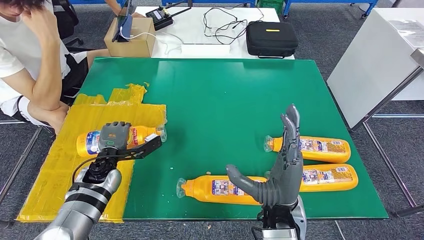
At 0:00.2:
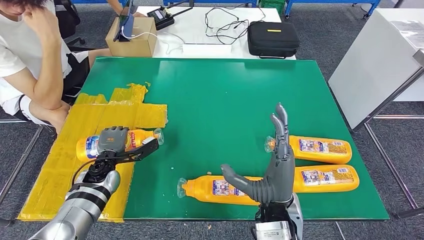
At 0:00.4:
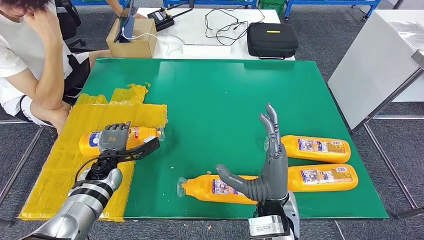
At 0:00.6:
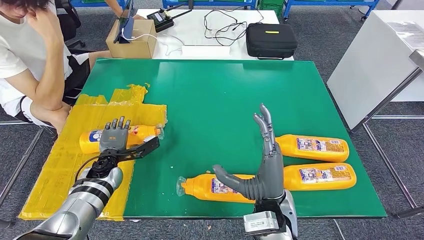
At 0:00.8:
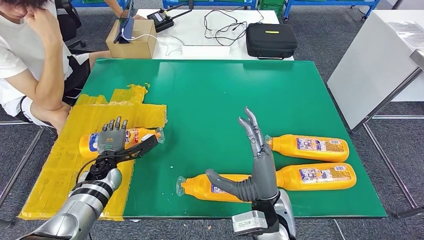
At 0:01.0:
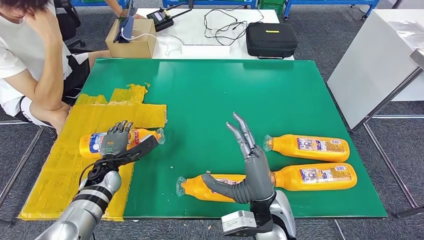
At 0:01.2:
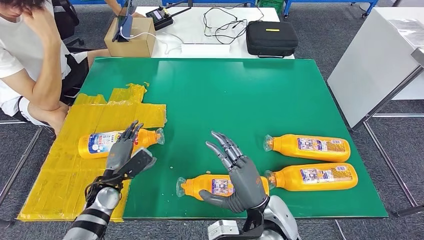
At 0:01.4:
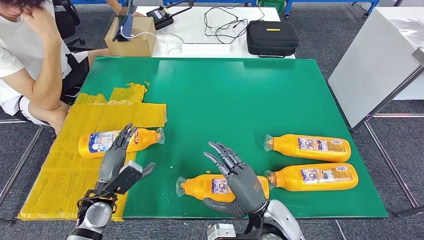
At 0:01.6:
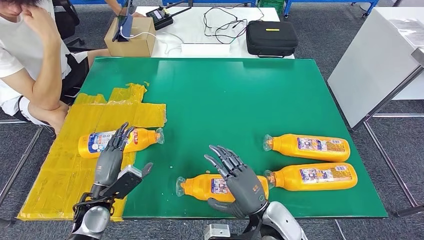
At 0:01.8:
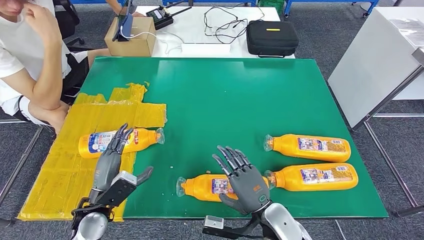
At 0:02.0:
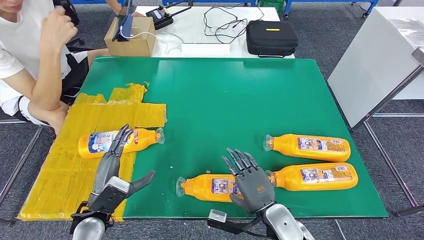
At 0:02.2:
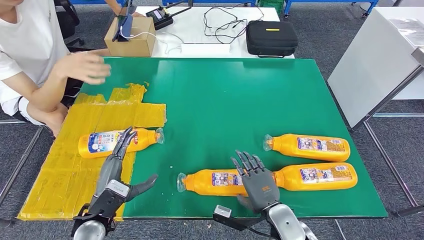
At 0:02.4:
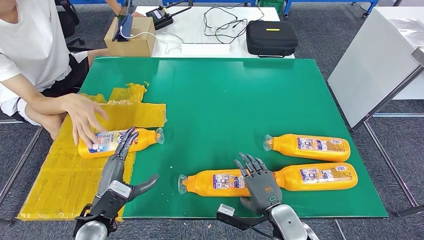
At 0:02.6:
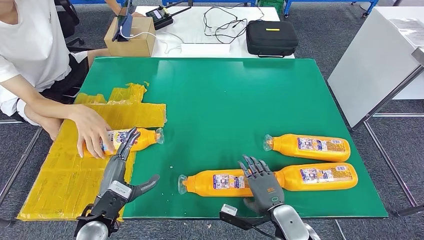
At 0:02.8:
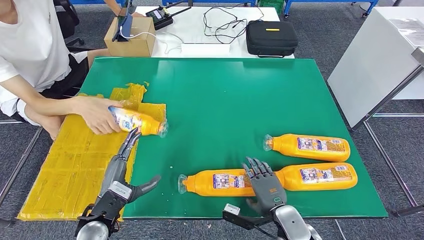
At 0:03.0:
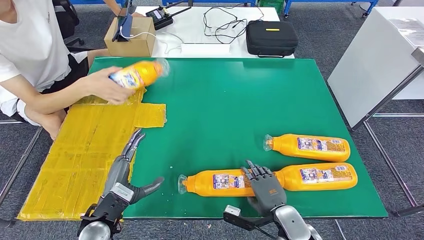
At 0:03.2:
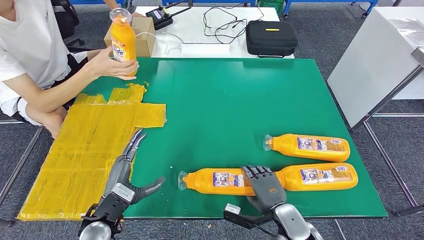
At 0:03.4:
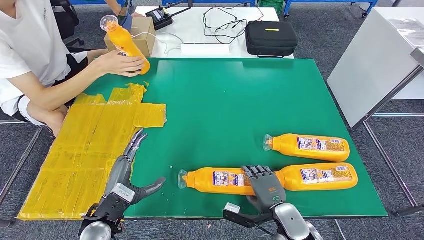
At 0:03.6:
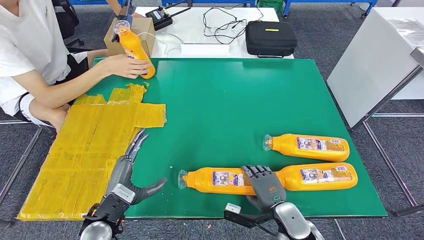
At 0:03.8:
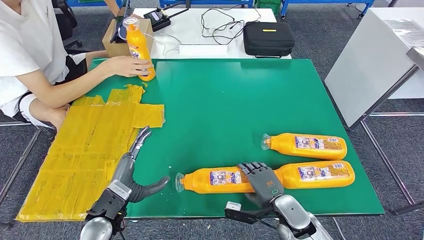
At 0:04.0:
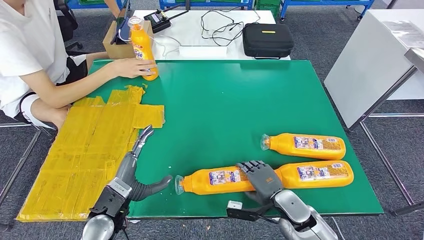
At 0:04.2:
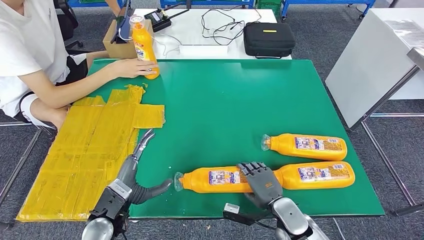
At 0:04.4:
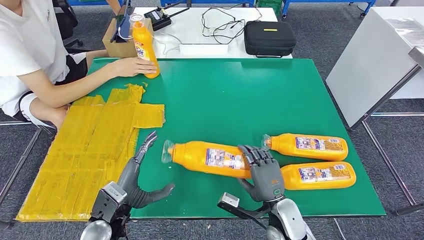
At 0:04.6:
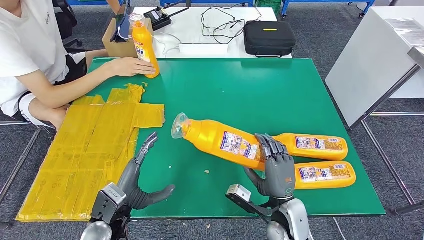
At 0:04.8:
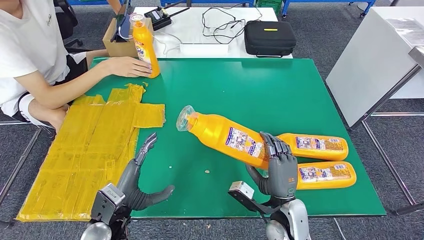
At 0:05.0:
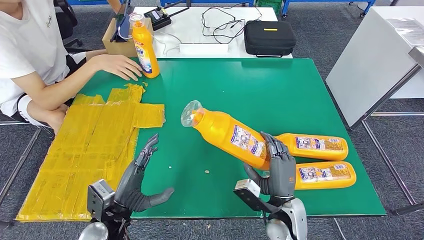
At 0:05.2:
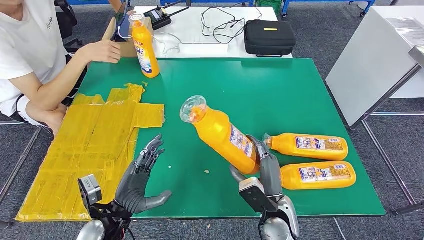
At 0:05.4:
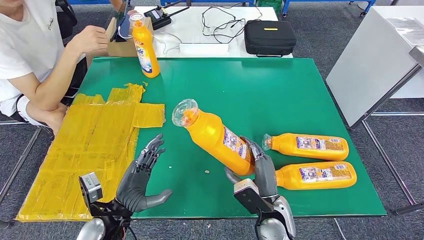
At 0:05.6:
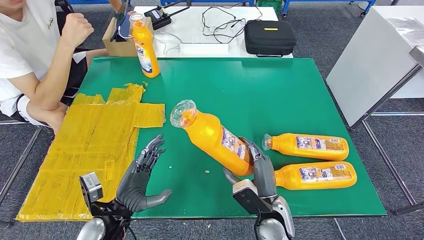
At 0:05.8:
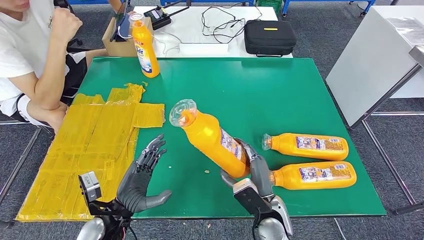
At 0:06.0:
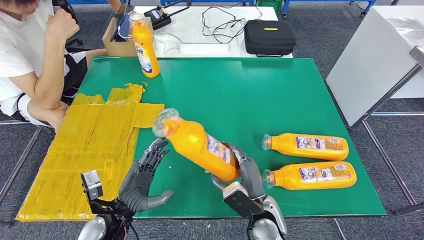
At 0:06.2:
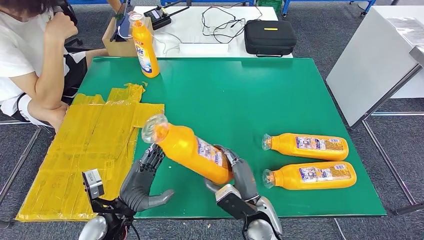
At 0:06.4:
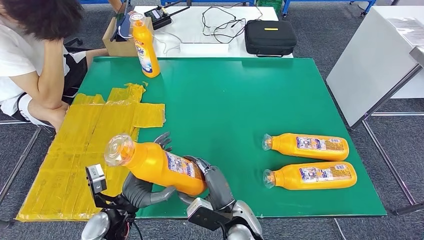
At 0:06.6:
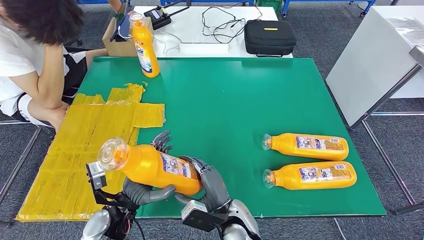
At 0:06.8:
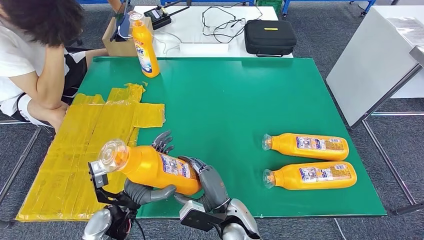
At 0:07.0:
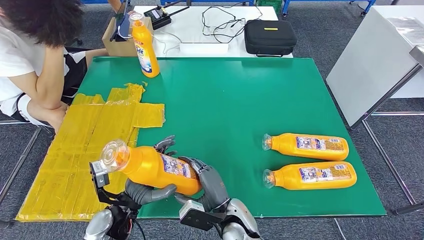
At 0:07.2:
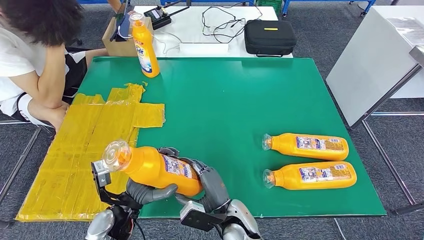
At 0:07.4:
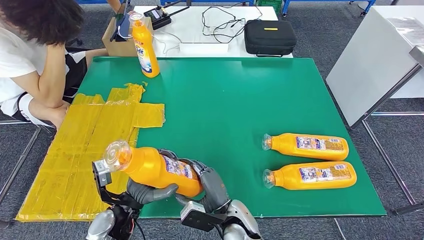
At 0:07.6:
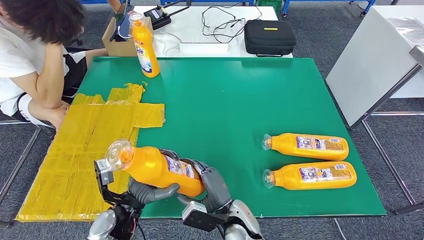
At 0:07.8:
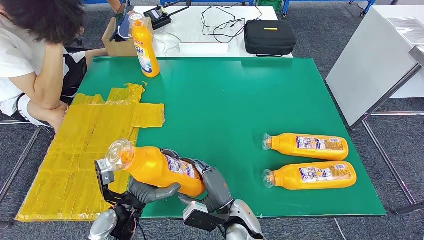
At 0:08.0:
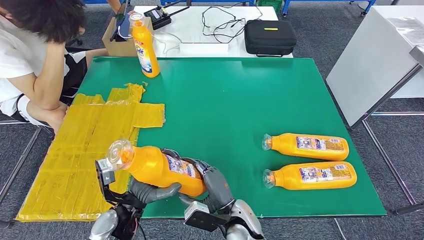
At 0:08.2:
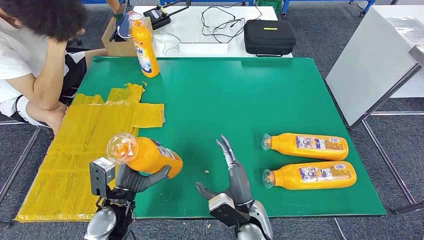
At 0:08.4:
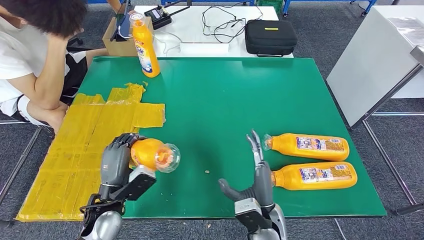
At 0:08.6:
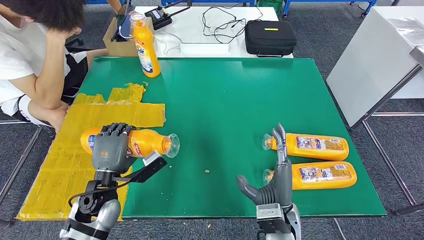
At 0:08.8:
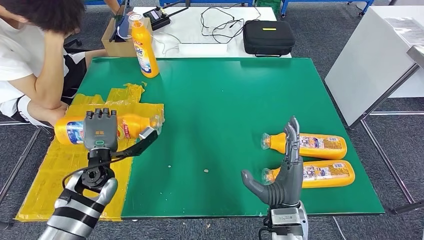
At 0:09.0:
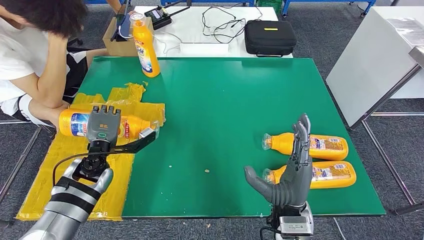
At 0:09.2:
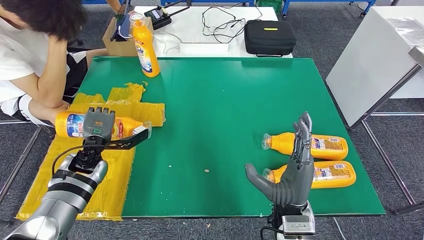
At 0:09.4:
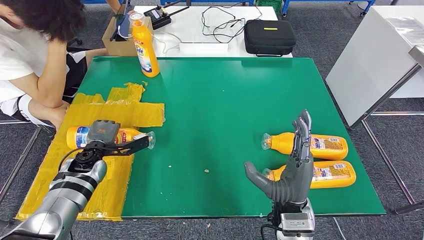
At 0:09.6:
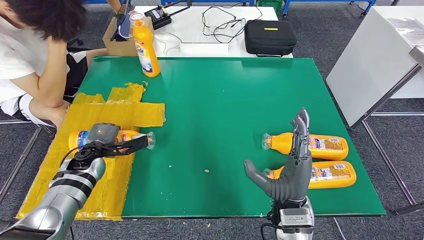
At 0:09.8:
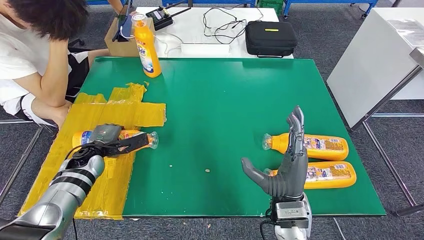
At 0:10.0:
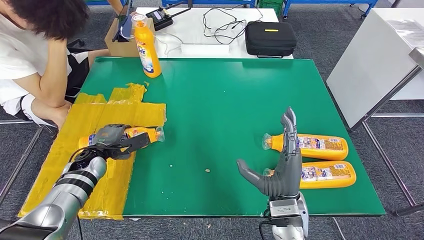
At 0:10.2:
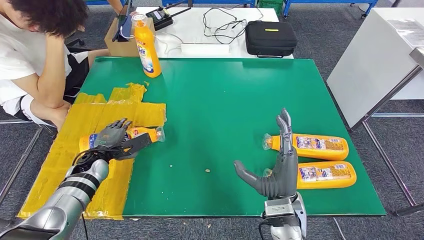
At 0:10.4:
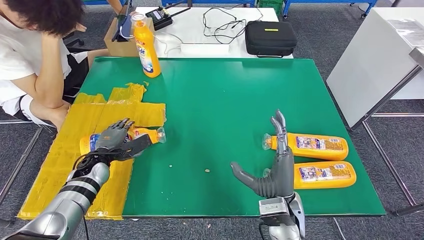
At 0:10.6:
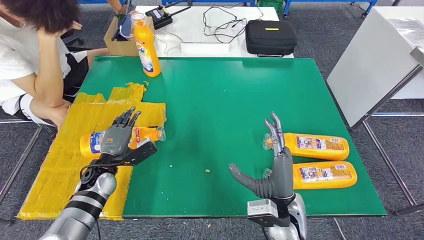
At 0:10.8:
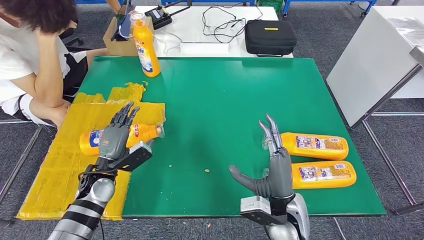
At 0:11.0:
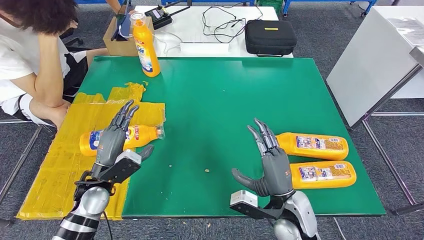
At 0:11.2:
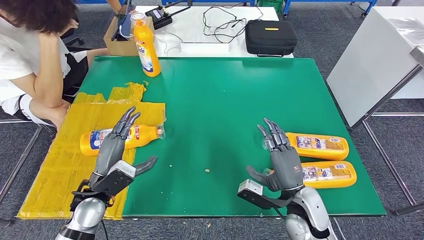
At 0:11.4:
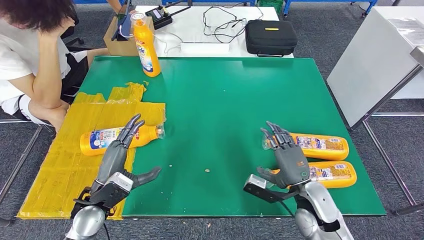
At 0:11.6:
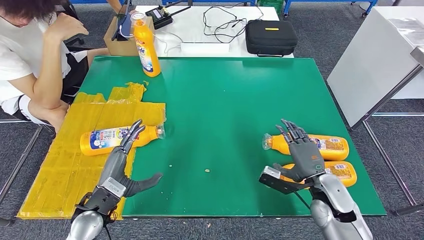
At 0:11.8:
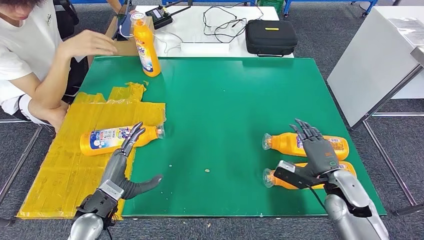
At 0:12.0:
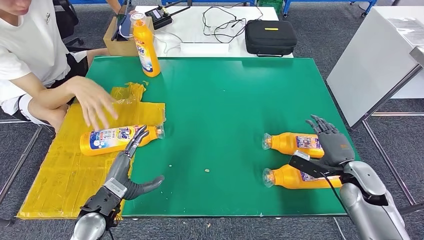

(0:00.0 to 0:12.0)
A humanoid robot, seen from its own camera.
Step, 0:02.0 - 0:07.2: Pick up the fast-moving consumer goods bottle from the table.
Step, 0:07.4 - 0:11.6: Flip the fast-moving consumer goods bottle to the front side.
0:00.0 - 0:01.6: The right hand moves downward, approximately 5 cm. Meanwhile the left hand shifts approximately 10 cm backward.
0:01.6 - 0:03.0: The right hand goes about 10 cm downward and to the right, while the left hand ends up approximately 5 cm from where it was.
0:04.4 - 0:06.0: The right hand goes roughly 5 cm to the left.
0:06.0 - 0:07.6: The right hand heads to the left, covering some 5 cm.
0:09.0 - 0:10.4: The left hand goes approximately 5 cm downward.

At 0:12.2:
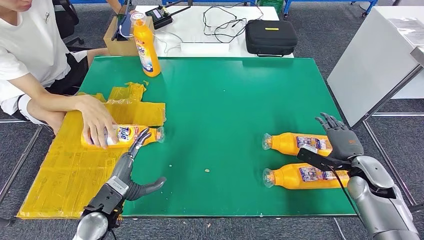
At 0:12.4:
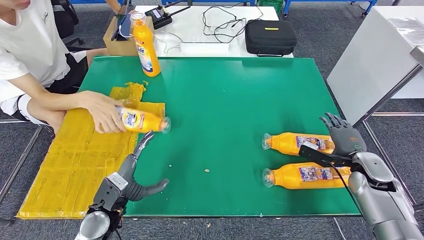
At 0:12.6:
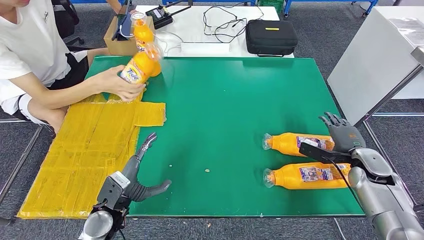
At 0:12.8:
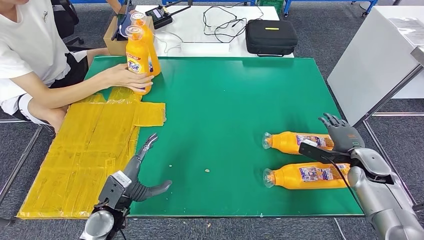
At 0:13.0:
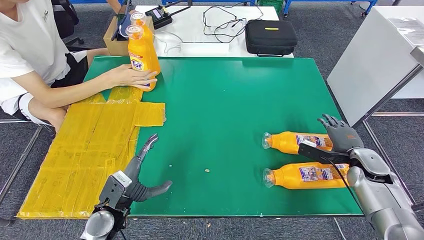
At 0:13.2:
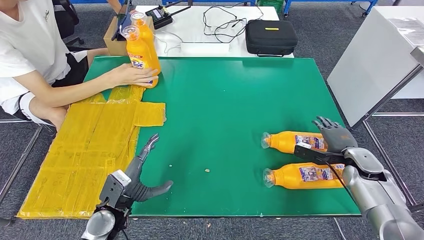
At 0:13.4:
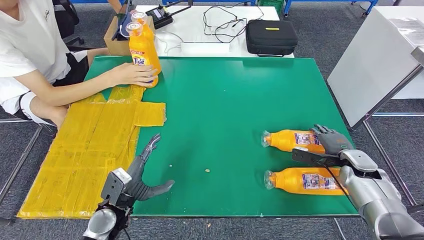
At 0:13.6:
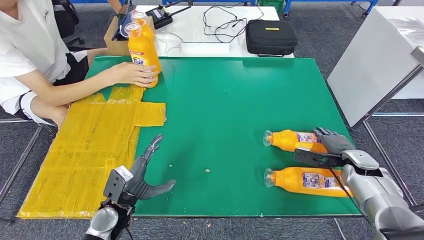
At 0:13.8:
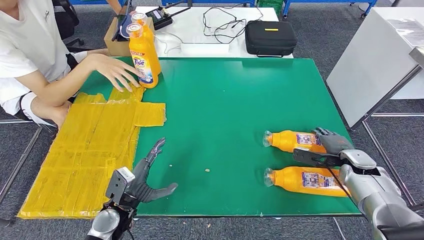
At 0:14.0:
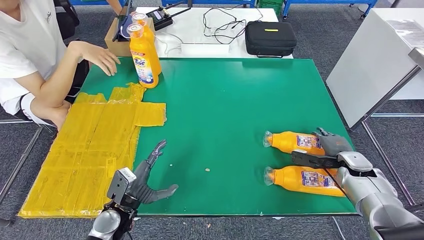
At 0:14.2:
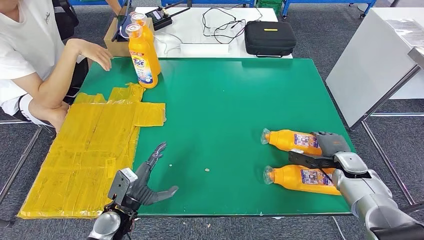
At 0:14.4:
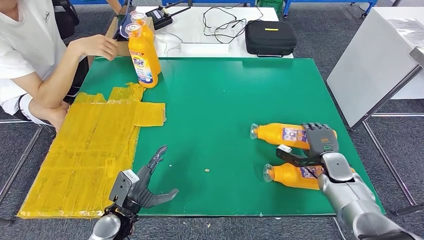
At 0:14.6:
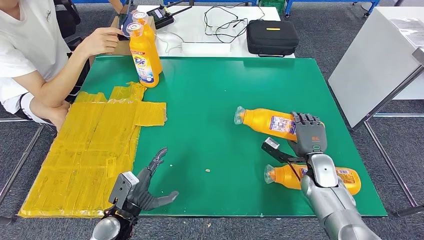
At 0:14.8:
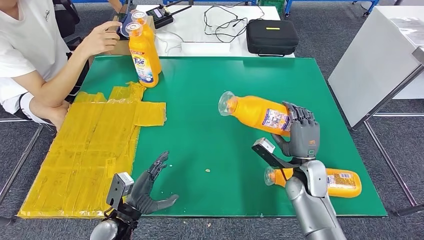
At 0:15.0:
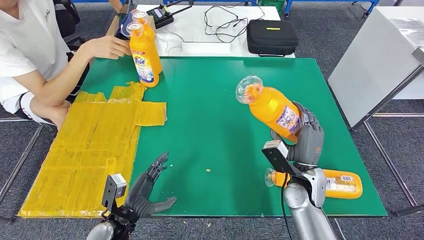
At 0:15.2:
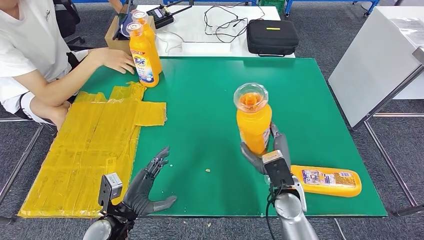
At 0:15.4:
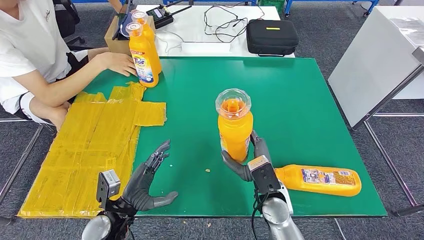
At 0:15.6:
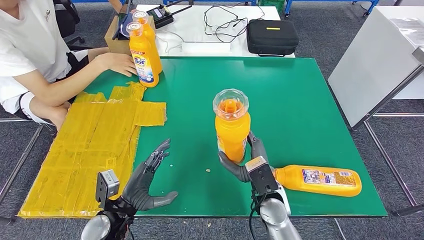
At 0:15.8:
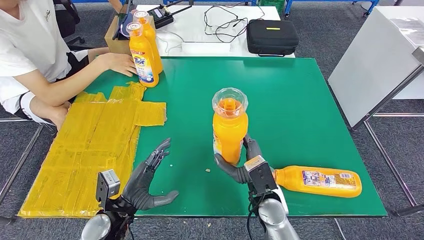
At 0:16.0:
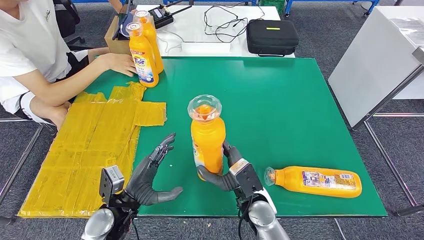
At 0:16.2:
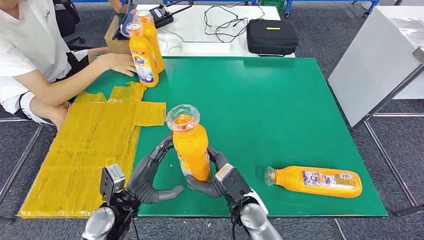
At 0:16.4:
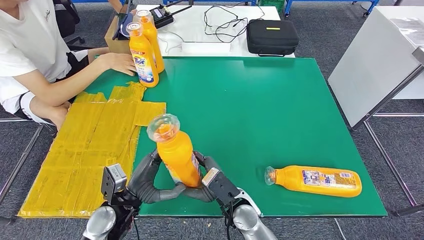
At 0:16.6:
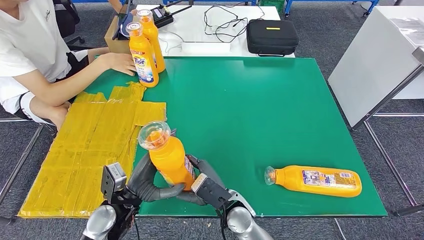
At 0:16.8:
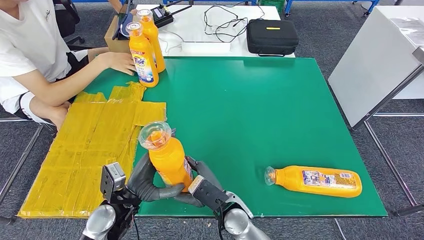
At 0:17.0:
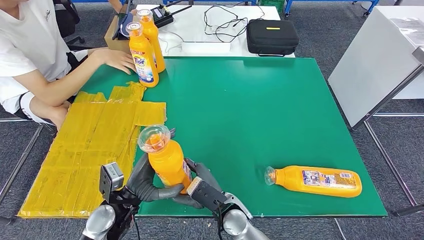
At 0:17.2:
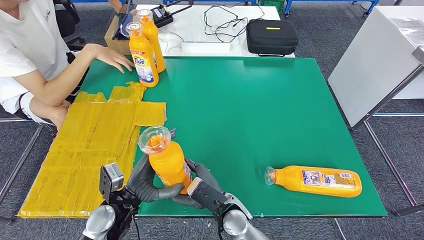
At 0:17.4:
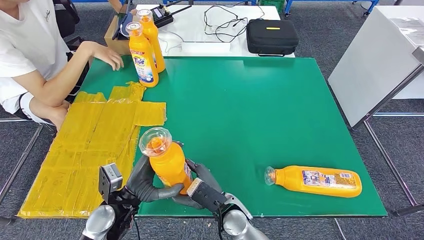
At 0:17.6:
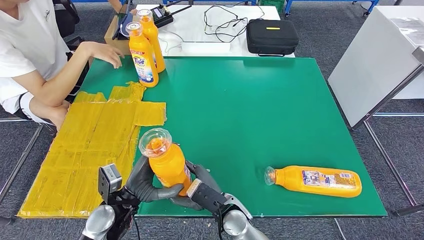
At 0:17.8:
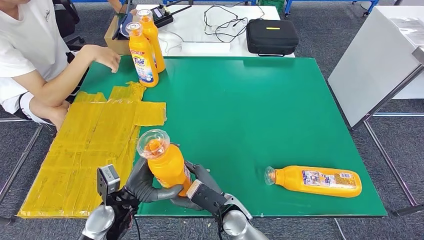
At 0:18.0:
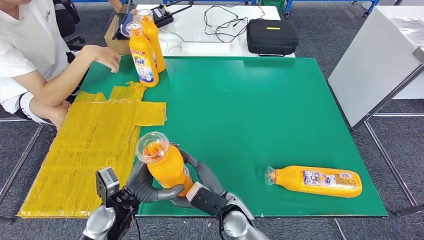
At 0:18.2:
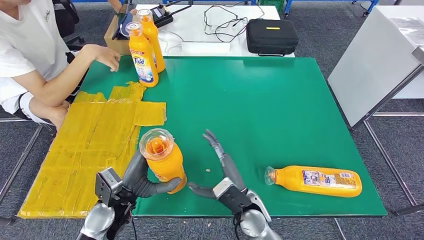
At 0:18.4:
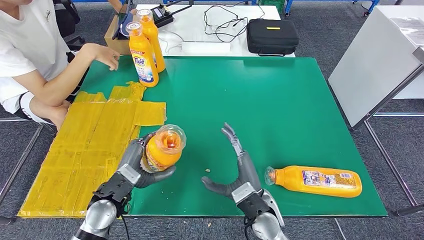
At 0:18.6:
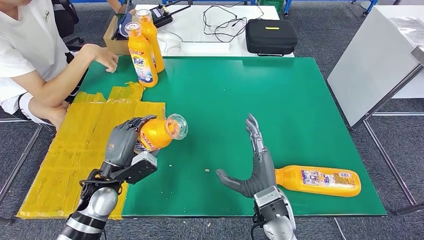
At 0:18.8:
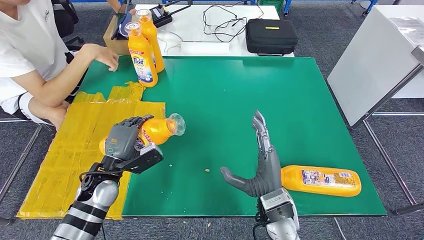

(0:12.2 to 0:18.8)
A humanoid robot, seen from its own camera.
Step, 0:12.2 - 0:16.8: Pick up the fast-moving consumer goods bottle from the table.
0:12.2 - 0:13.8: The right hand shifts by roughly 5 cm.
0:15.4 - 0:17.2: The right hand is displaced to the left by approximately 10 cm.
0:17.2 - 0:18.8: The left hand shifts roughly 10 cm forward and to the left. Meanwhile the right hand heads to the right and upward, covering about 10 cm.
